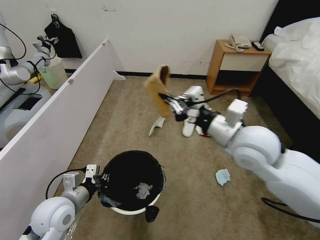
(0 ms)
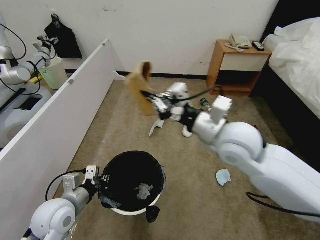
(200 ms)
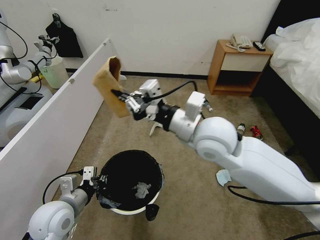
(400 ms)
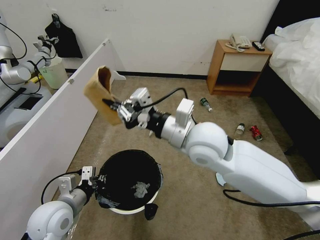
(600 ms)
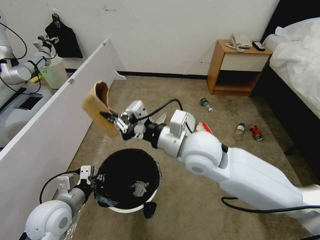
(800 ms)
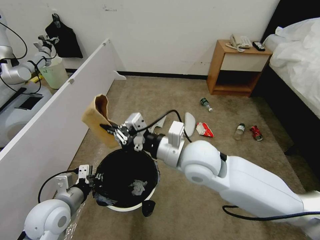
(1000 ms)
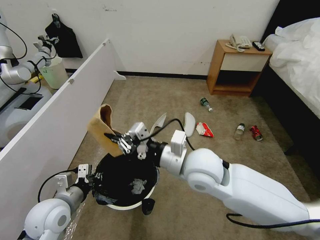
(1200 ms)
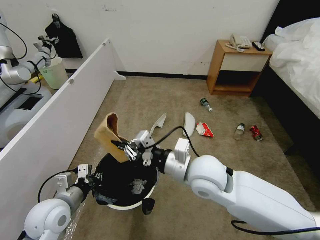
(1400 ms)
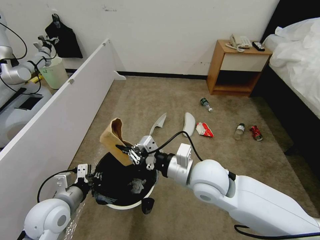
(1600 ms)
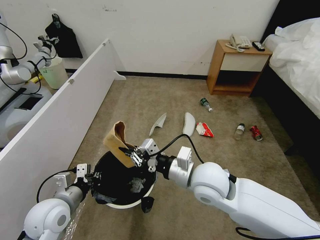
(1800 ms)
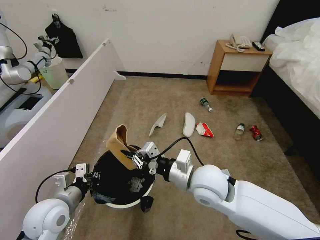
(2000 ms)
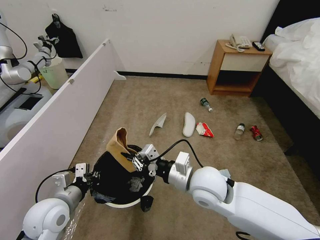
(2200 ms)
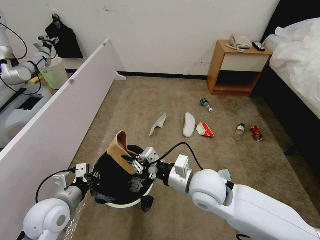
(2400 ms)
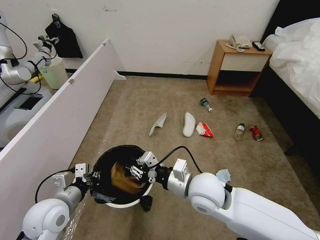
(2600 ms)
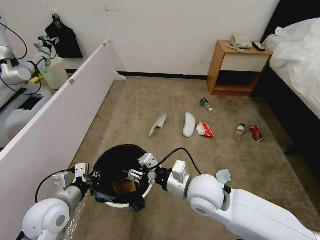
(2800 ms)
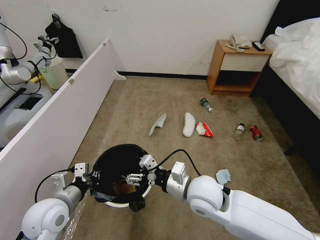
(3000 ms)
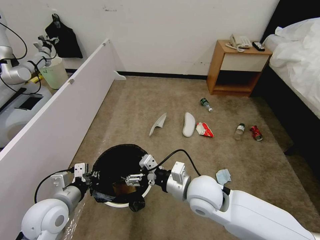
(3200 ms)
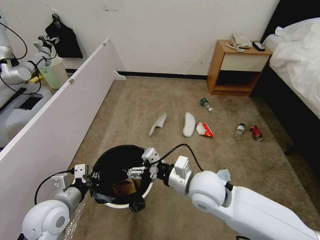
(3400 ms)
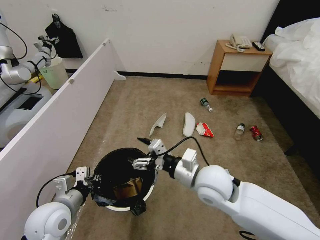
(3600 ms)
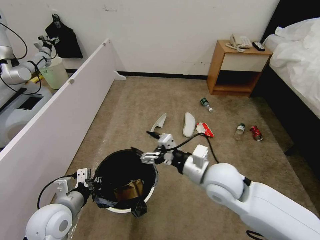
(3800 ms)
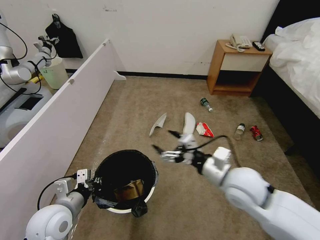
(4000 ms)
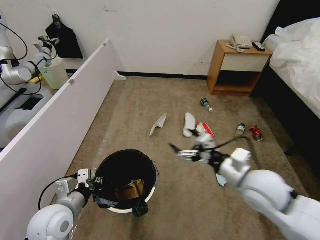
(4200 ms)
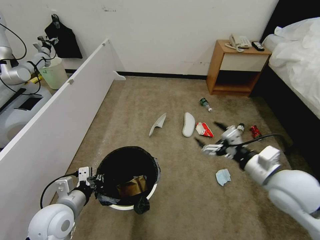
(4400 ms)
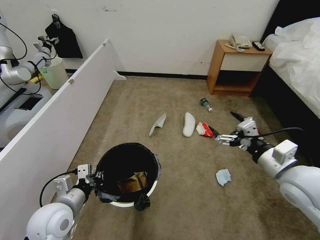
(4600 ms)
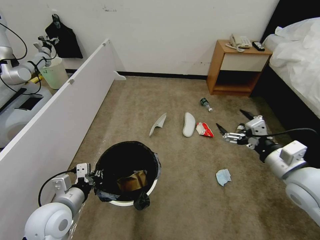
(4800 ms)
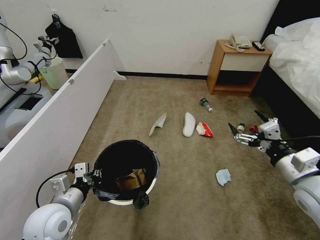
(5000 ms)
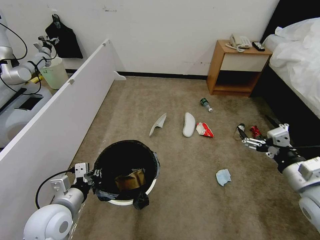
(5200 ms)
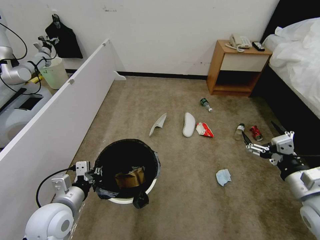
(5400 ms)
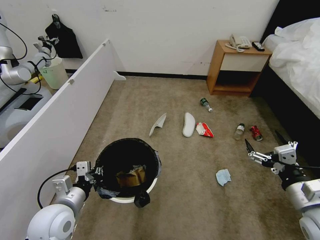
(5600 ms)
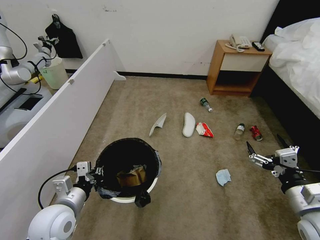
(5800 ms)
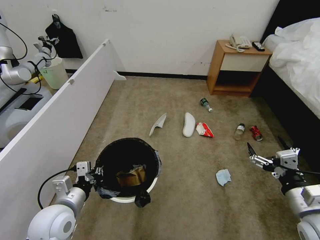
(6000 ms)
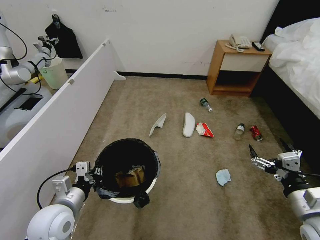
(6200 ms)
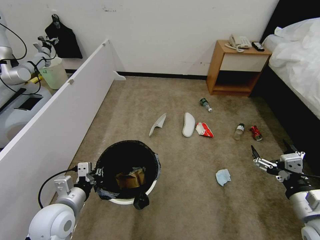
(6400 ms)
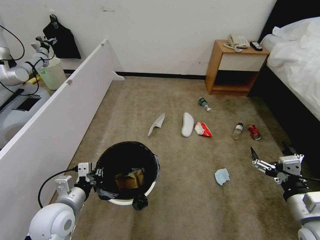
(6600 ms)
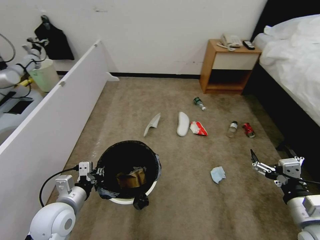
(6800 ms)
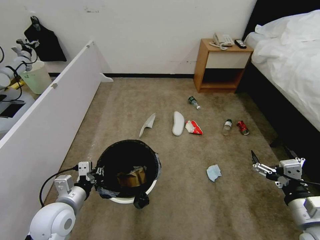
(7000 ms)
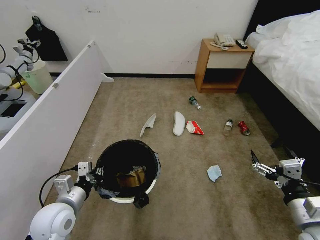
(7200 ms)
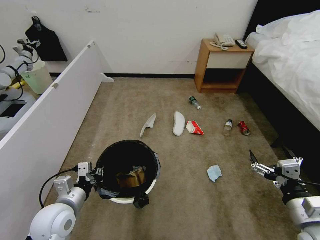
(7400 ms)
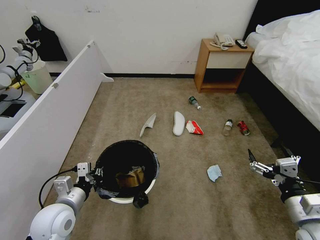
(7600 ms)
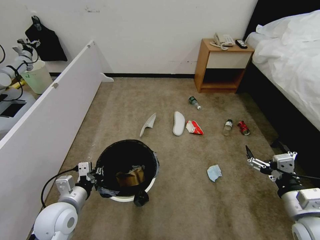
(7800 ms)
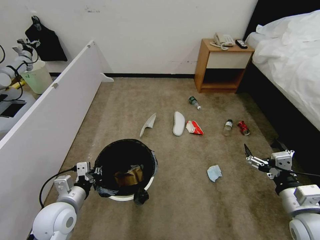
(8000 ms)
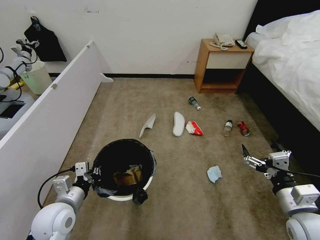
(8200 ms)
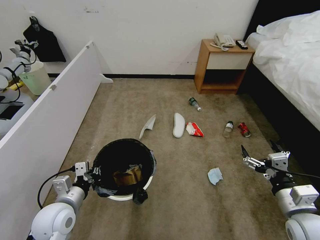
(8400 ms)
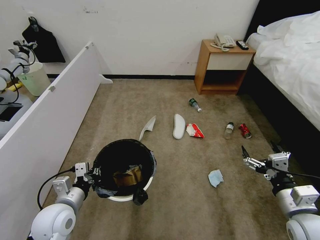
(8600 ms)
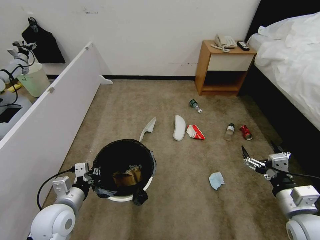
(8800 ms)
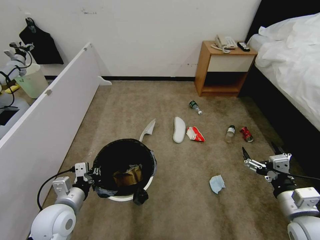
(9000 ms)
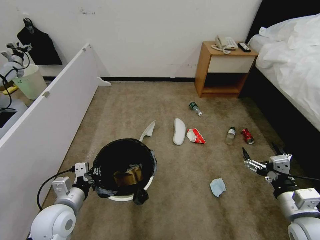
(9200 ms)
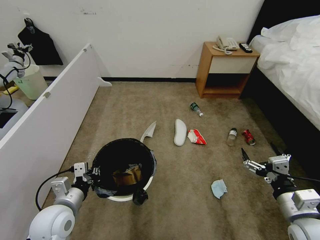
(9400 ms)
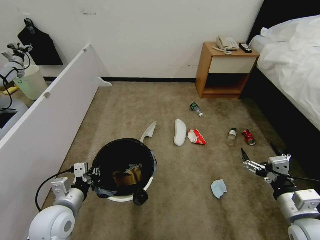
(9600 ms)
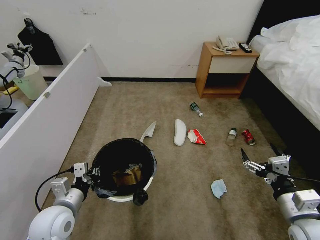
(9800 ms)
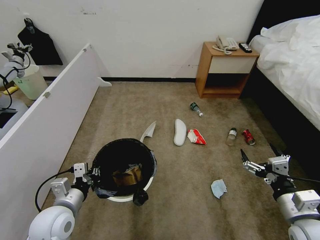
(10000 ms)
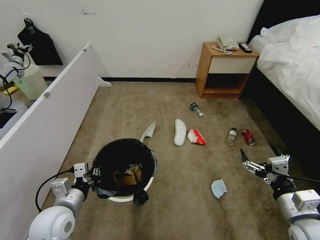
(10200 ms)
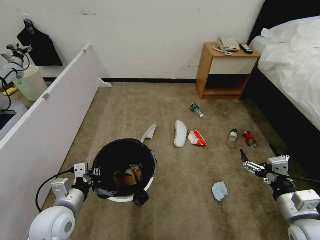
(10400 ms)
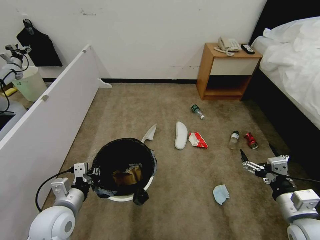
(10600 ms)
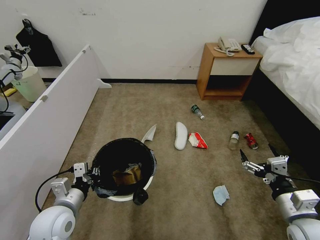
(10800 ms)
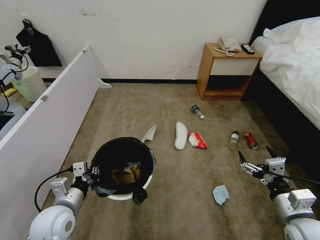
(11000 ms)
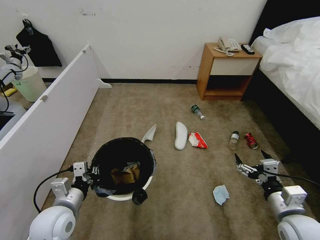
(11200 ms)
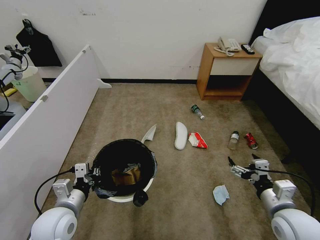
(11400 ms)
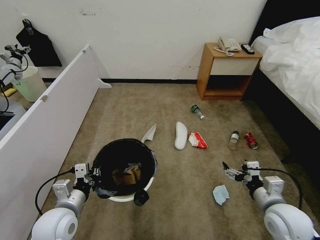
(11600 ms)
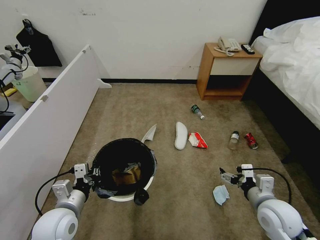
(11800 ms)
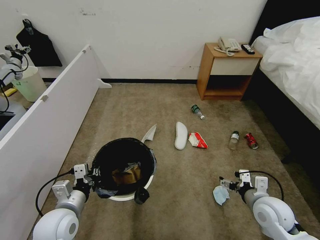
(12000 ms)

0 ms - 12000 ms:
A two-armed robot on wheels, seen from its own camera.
Task of the whole recording: Pick up the trash bin, then pick up the garbage from the floor and place it into the trash bin.
0 ms - 1600 ms: The right gripper travels to the left and downward by approximately 15 cm.
1600 ms - 3000 ms: The right gripper is displaced downward by about 5 cm, and opens its fingers.
3000 ms - 4400 ms: The right gripper goes some 20 cm to the right, and opens.
4400 ms - 6000 ms: The right gripper travels backward and to the right by some 10 cm.
7600 ms - 9000 ms: The grippers move only a little.
9000 ms - 10400 ms: Neither gripper changes place.
10400 ms - 12000 ms: The right gripper travels forward and downward by roughly 10 cm.

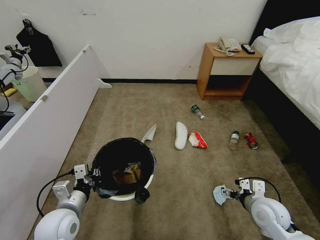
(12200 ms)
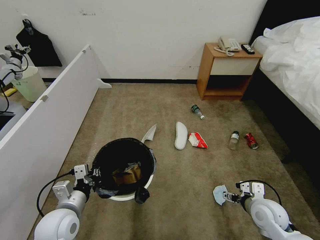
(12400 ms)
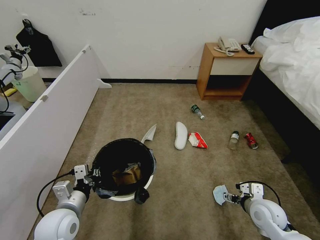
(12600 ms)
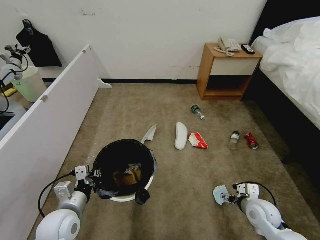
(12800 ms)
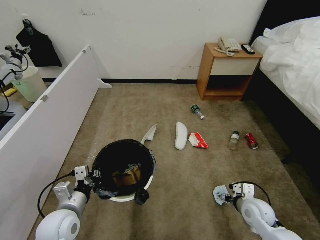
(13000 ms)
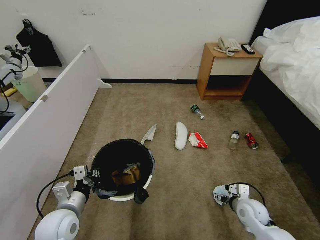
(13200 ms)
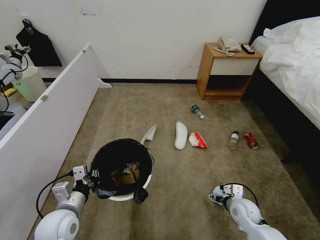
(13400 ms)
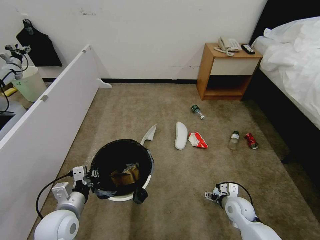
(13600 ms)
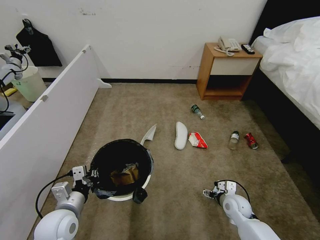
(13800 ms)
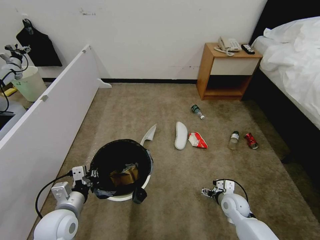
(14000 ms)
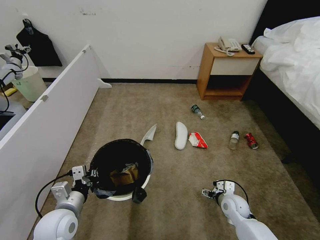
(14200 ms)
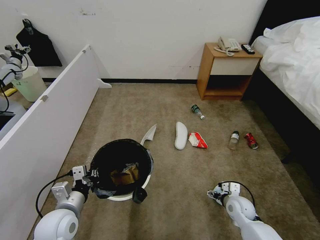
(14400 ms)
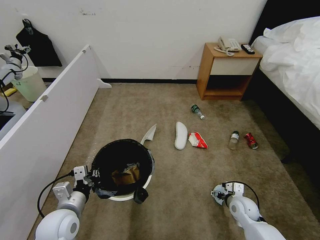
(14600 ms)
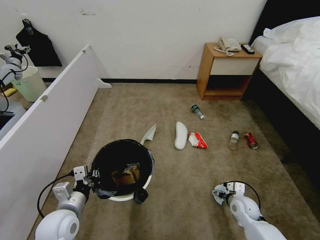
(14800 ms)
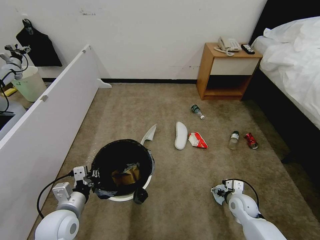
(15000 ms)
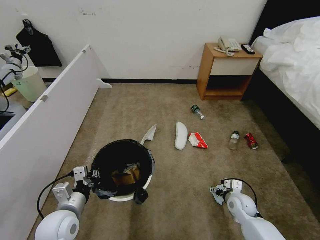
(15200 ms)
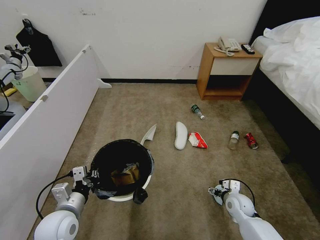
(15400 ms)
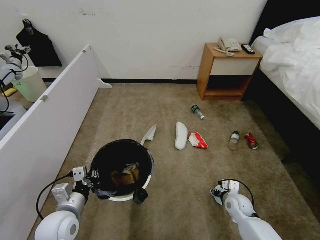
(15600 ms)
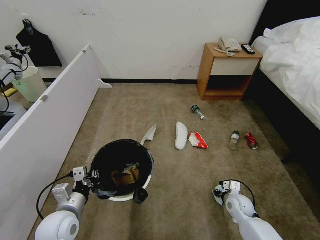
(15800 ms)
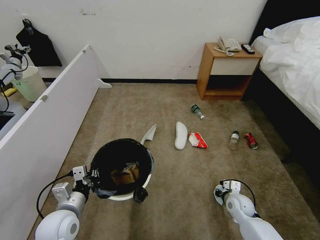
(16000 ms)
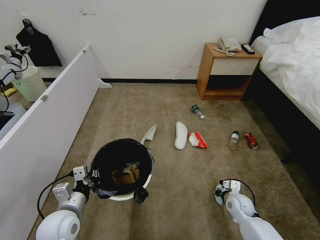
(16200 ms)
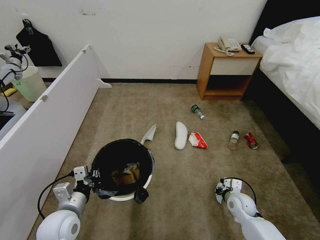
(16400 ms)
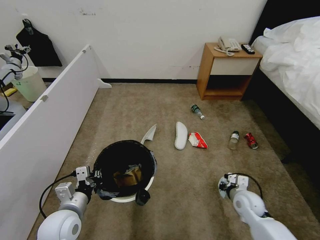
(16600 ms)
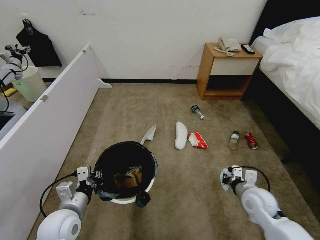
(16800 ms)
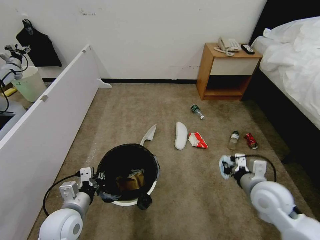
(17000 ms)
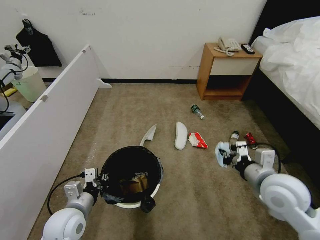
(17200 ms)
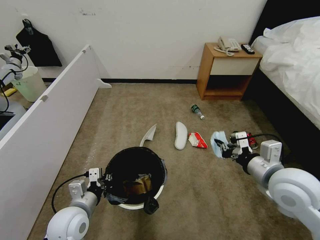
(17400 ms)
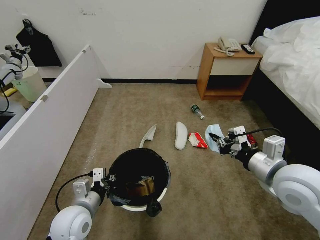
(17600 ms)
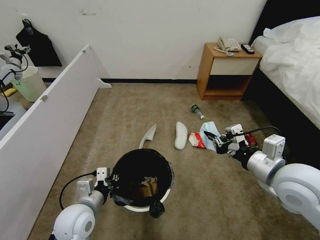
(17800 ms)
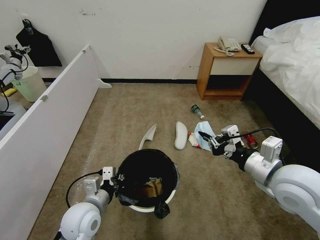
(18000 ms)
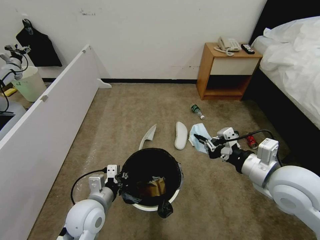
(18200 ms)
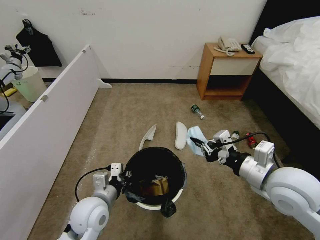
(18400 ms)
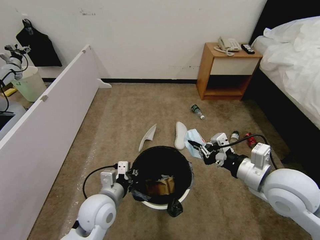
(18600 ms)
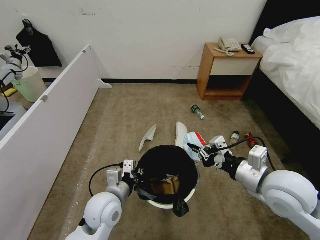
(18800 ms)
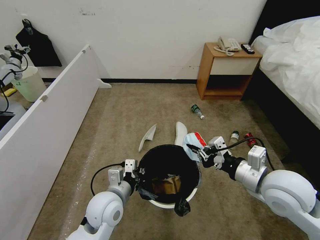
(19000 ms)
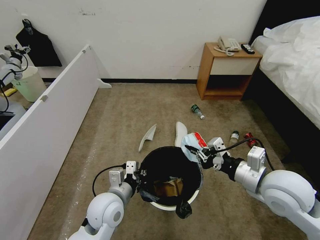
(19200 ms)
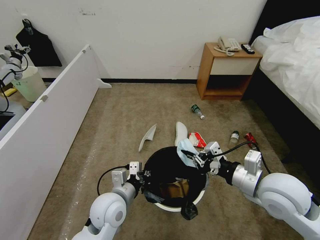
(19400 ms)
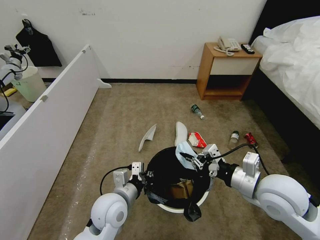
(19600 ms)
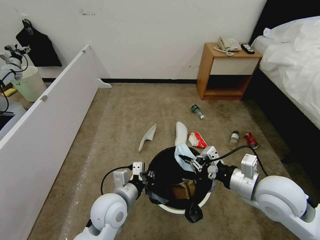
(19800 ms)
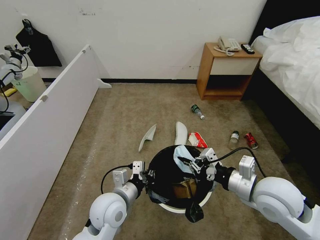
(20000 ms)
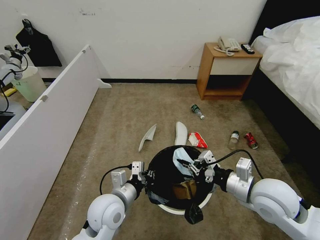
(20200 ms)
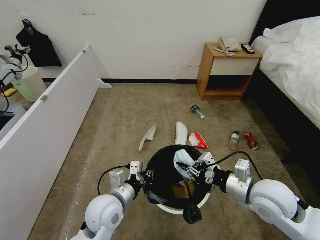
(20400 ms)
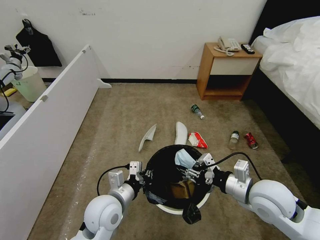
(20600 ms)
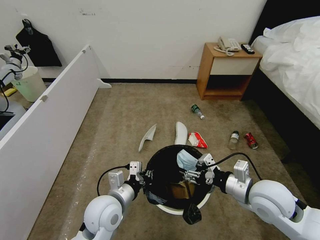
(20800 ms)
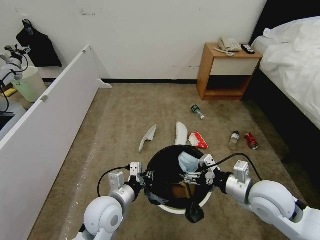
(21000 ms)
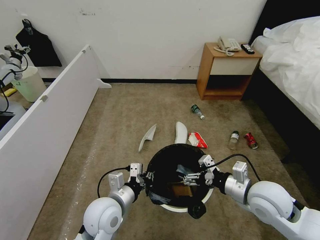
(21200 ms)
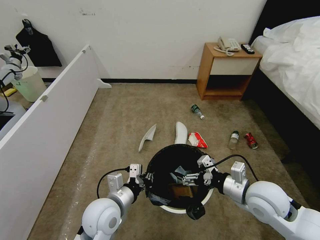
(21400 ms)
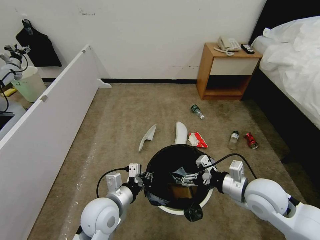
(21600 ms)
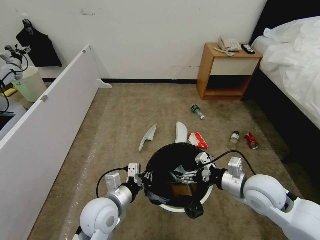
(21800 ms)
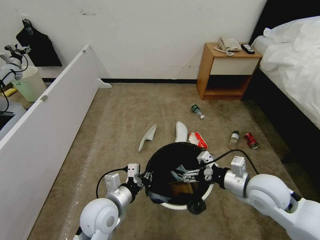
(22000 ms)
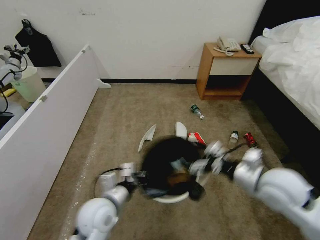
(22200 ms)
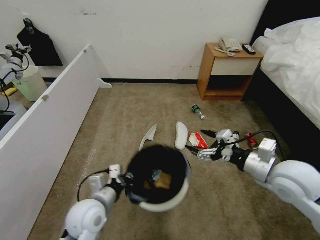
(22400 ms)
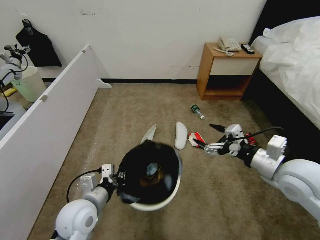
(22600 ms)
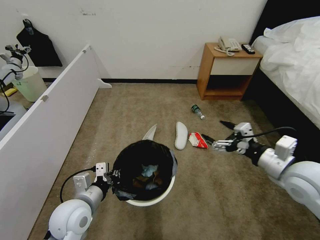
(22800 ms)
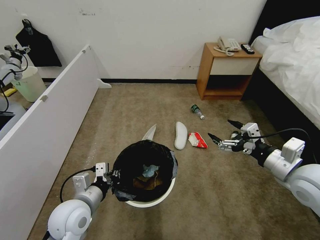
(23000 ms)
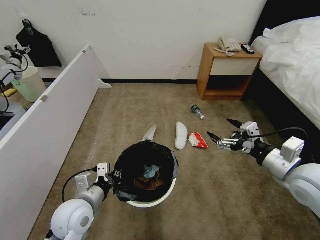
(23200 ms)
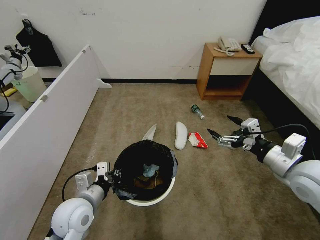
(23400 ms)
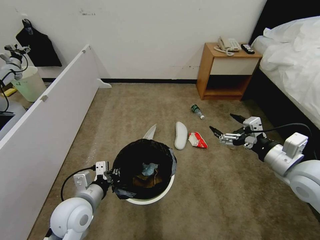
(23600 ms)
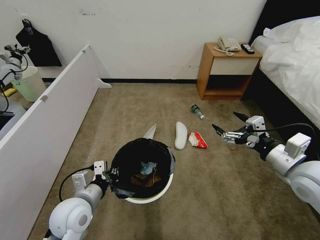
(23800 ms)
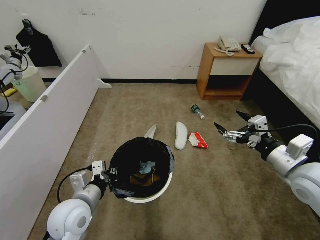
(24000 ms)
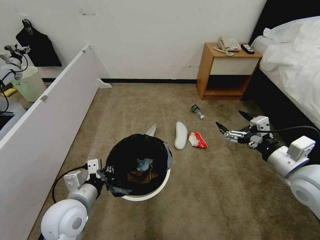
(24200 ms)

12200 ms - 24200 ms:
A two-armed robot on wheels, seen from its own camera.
Task of the whole recording: Pick up the trash bin, then pick up the garbage from the floor and place it into the trash bin.
12200 ms - 13800 ms: The right gripper shifts about 15 cm downward and forward.
13800 ms - 15200 ms: The grippers move only a little.
15200 ms - 16600 ms: The right gripper closes up.
16600 ms - 18200 ms: The left gripper is displaced to the right by roughly 5 cm; the right gripper is displaced upward by about 25 cm.
18200 ms - 19800 ms: The left gripper travels to the right by approximately 5 cm.
19800 ms - 21200 ms: The right gripper opens up.
21200 ms - 22600 ms: The left gripper travels to the left by approximately 5 cm, while the right gripper moves upward and to the right, roughly 10 cm.
22600 ms - 24200 ms: The grippers stay close to where they were, moving slightly.
